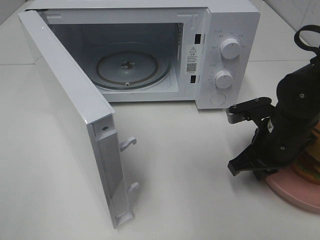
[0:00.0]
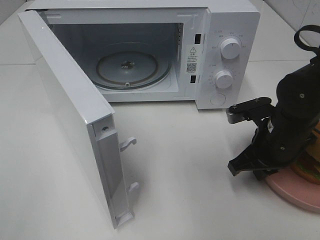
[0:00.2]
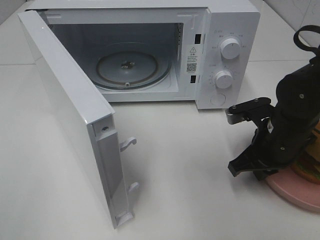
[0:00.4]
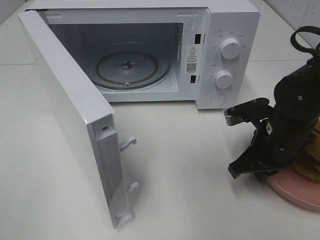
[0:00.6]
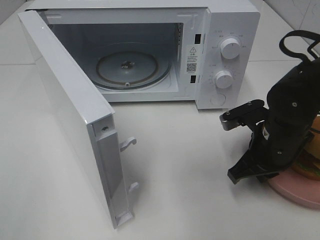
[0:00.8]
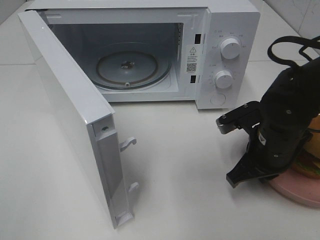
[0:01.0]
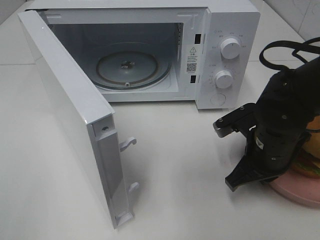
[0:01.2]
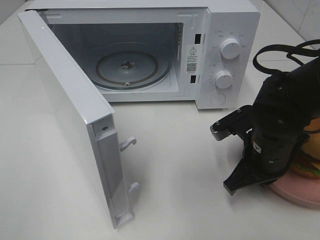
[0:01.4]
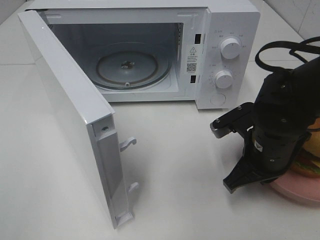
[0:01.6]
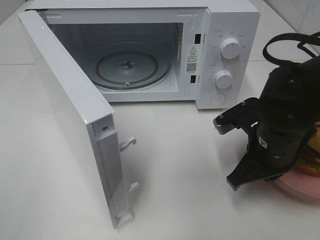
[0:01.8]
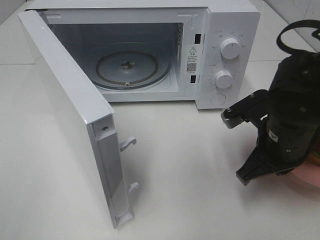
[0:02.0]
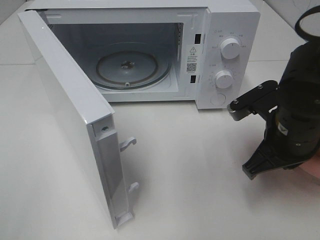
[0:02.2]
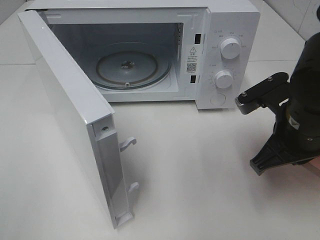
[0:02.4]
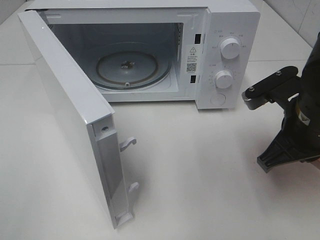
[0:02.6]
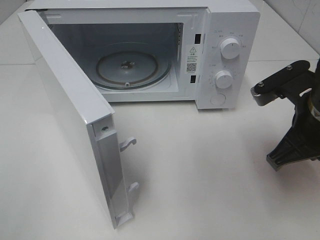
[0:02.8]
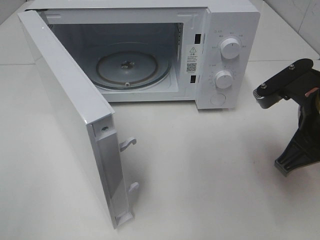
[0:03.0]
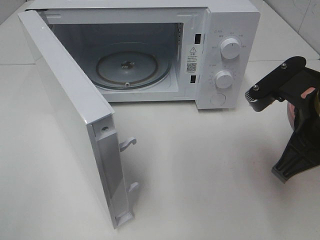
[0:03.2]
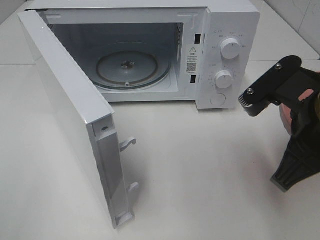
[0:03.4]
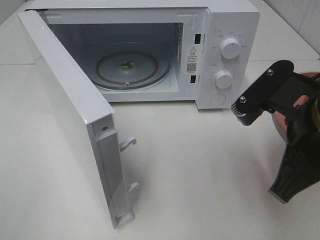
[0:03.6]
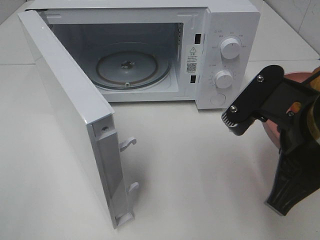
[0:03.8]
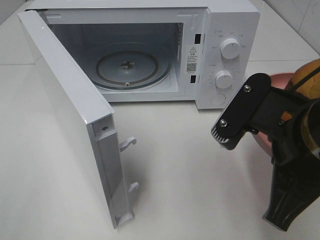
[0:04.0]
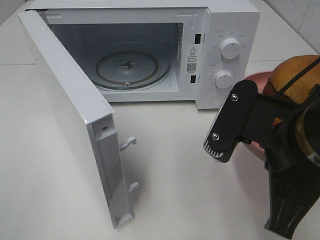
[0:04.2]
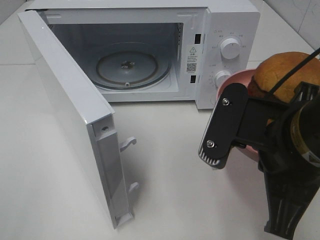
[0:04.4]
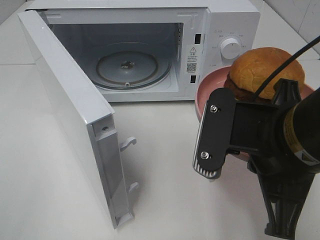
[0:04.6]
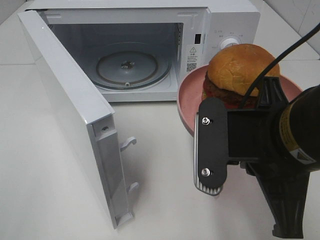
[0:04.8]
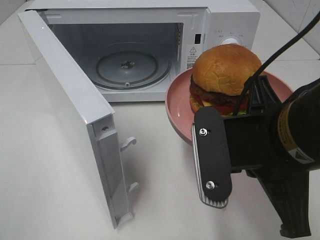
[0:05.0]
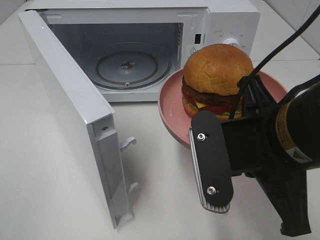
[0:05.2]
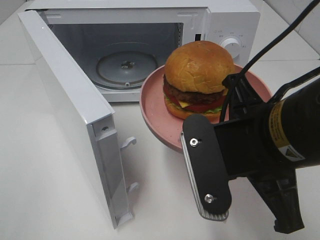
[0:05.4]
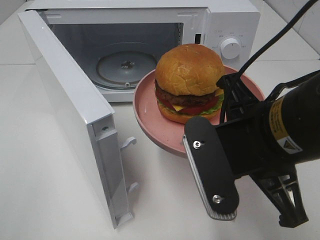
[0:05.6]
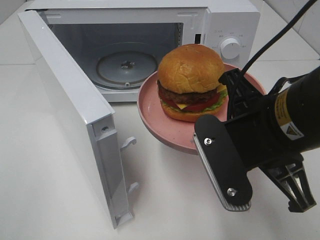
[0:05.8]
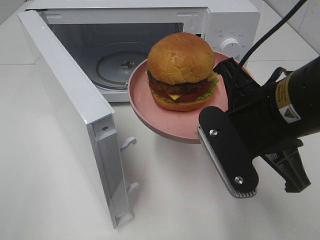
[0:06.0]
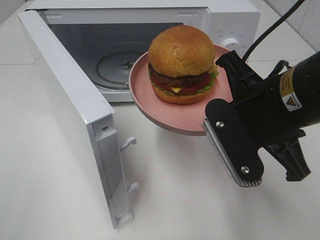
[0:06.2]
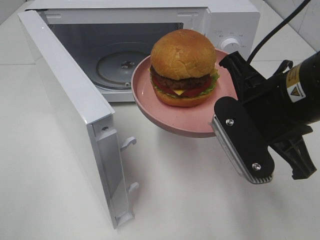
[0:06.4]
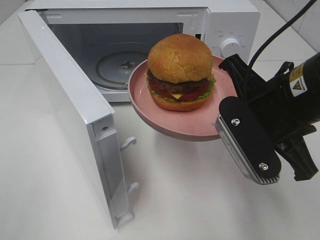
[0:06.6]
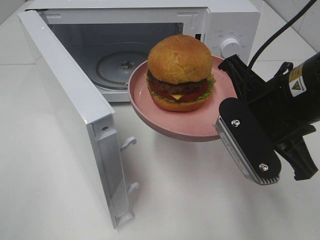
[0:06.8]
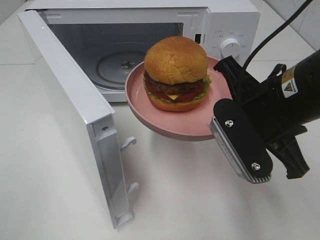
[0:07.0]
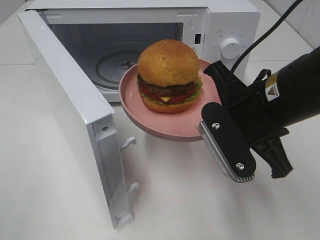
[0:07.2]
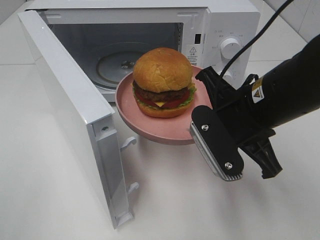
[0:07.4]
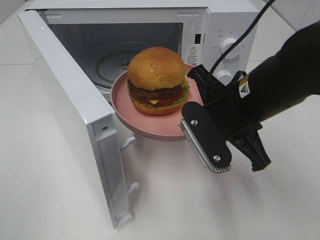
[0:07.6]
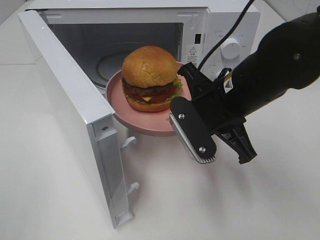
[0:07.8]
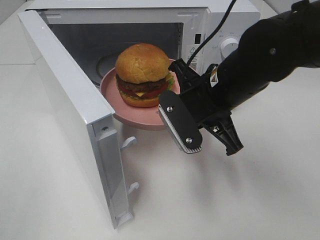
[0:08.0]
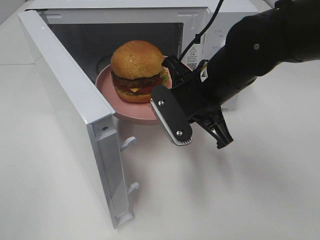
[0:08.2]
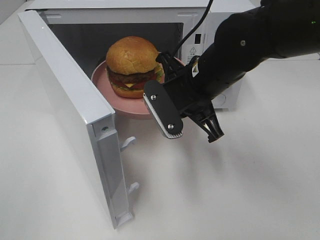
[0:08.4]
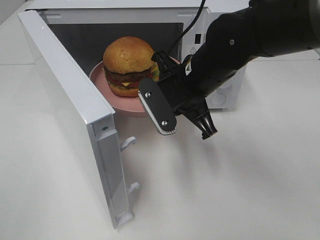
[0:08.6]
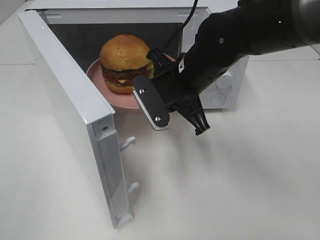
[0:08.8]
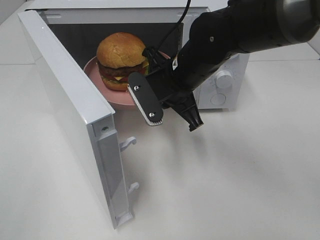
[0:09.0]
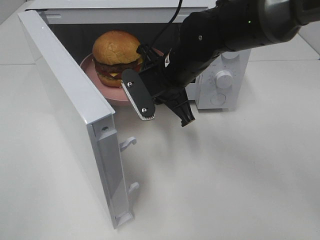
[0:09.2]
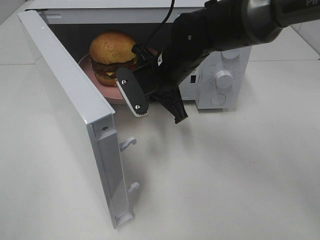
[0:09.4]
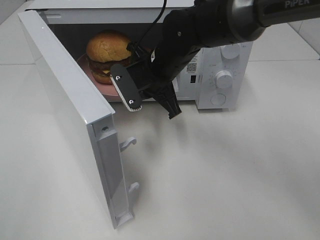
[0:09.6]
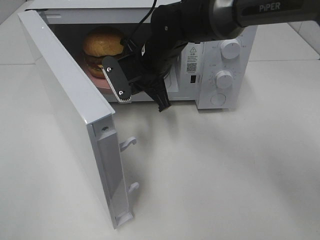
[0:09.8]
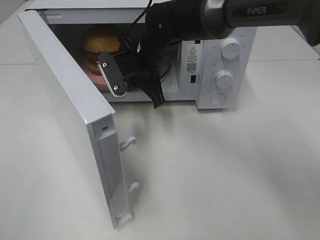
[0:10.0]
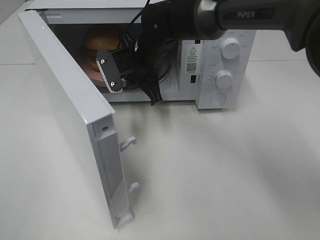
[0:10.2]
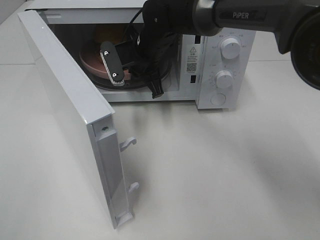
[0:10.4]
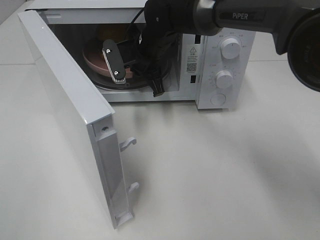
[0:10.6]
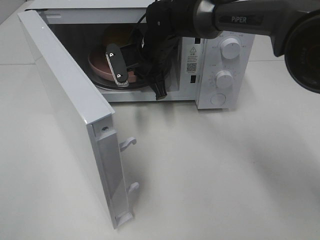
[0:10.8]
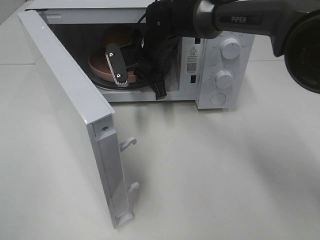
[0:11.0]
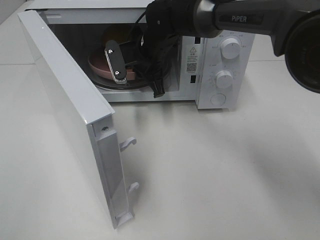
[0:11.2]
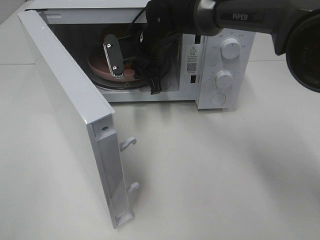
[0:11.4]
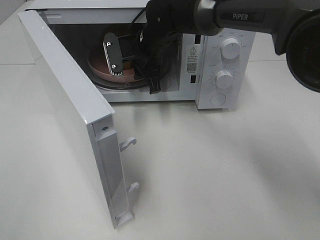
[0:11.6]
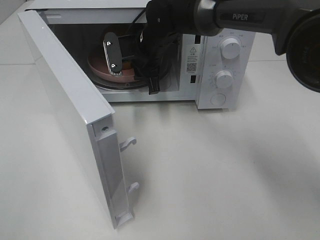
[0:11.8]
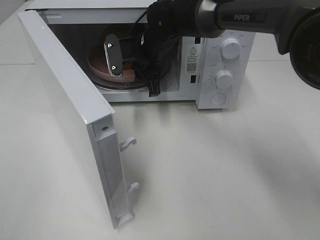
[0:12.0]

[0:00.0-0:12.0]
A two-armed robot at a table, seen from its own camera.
Task of the whole recording: Heat the burger.
Step, 0:00.0 to 0:11.4: Right hand: place the plate in the microwave.
0:00.0 to 0:01.6: There are only small adjustments of the grippers.
0:01.6 to 0:03.0: The right gripper heads upward, covering some 10 cm.
0:03.0 to 0:04.4: The right gripper is displaced to the left and backward by about 10 cm.
0:06.0 to 0:07.6: The right gripper shifts roughly 5 cm forward.
0:07.6 to 0:09.0: The right gripper shifts some 10 cm forward and to the left.
0:09.0 to 0:10.4: The right gripper heads forward and to the left, covering roughly 10 cm.
0:10.4 to 0:12.0: The right gripper opens up.

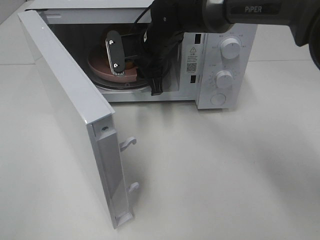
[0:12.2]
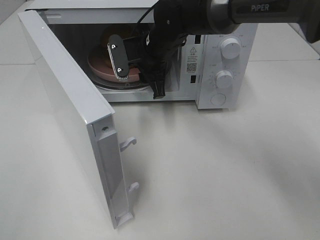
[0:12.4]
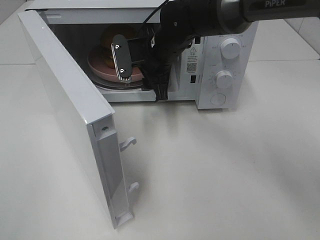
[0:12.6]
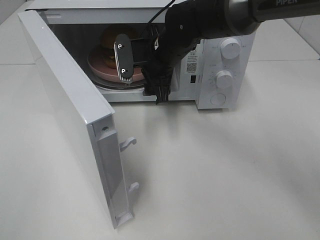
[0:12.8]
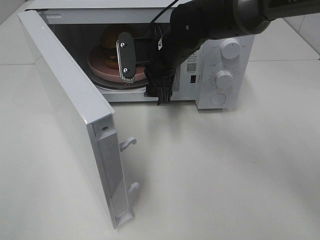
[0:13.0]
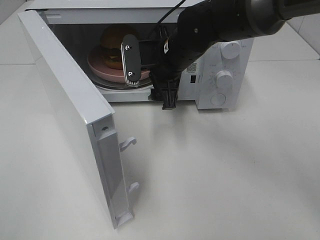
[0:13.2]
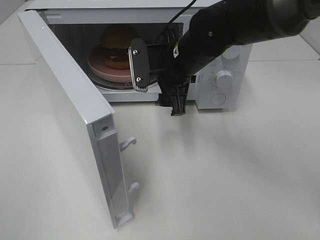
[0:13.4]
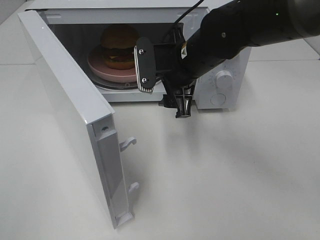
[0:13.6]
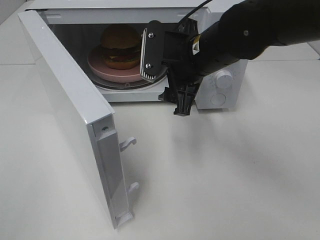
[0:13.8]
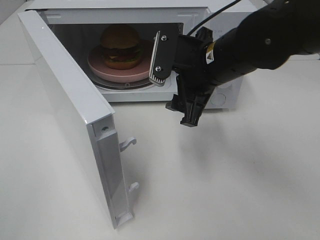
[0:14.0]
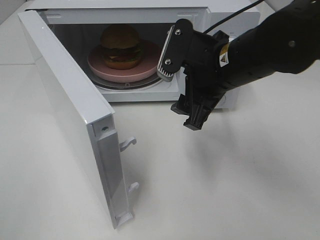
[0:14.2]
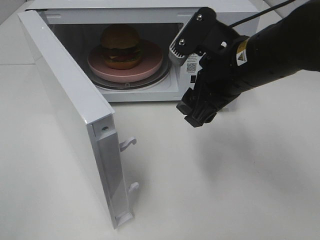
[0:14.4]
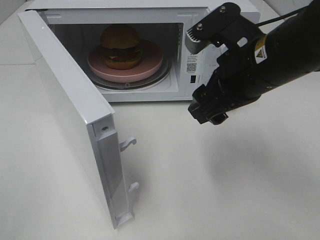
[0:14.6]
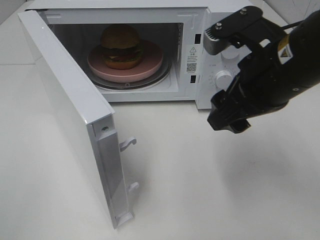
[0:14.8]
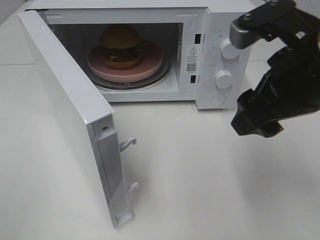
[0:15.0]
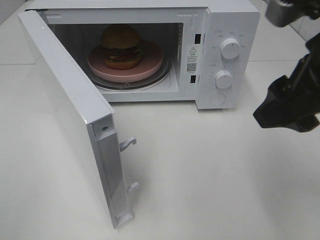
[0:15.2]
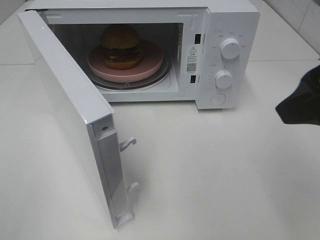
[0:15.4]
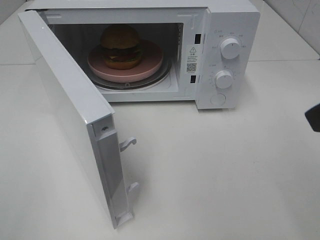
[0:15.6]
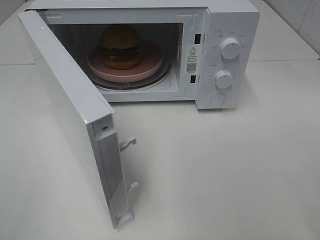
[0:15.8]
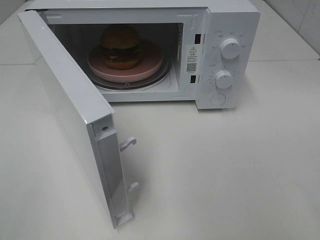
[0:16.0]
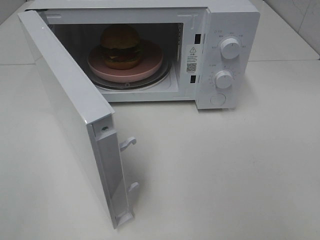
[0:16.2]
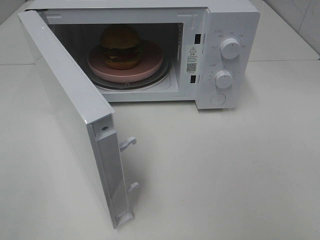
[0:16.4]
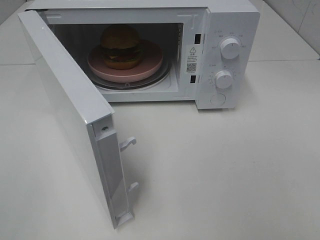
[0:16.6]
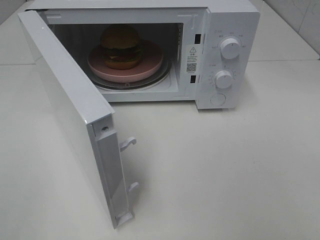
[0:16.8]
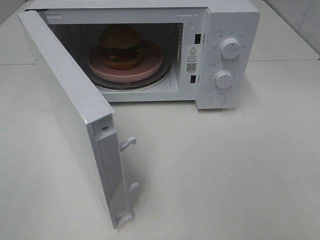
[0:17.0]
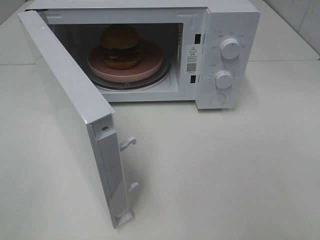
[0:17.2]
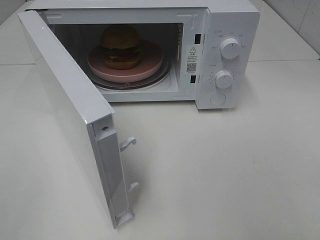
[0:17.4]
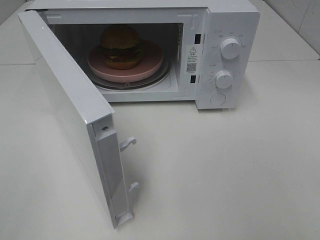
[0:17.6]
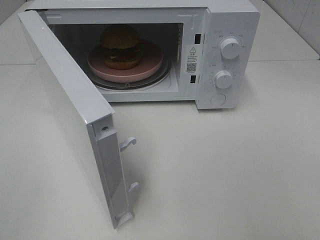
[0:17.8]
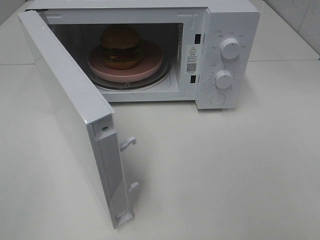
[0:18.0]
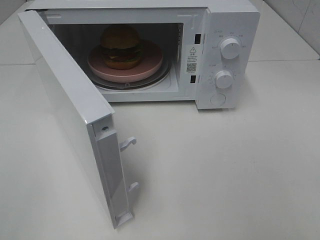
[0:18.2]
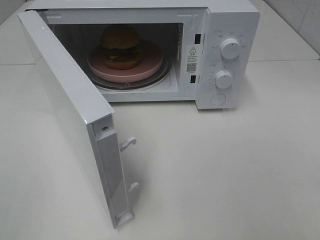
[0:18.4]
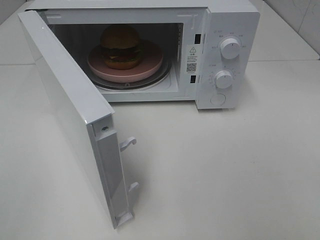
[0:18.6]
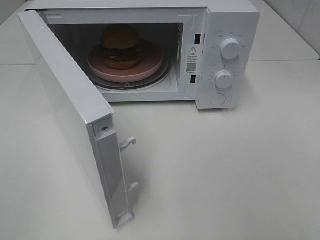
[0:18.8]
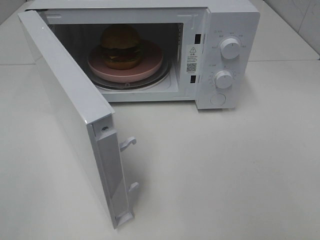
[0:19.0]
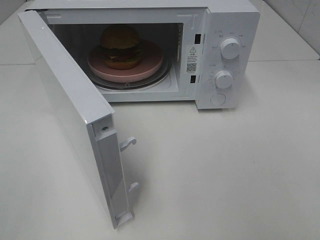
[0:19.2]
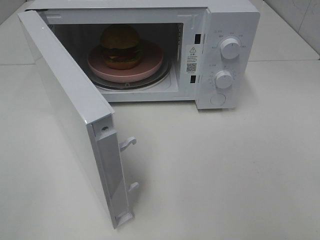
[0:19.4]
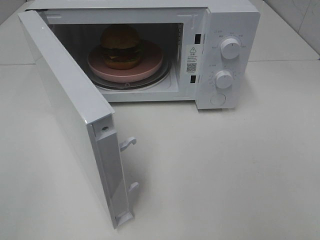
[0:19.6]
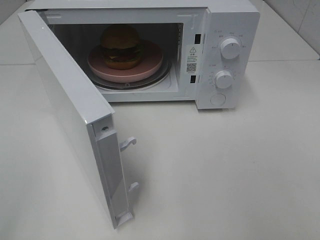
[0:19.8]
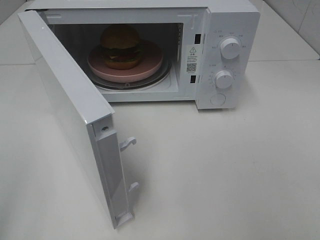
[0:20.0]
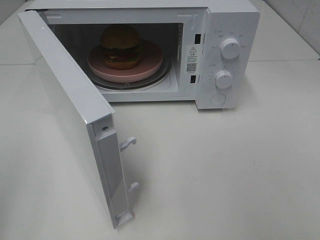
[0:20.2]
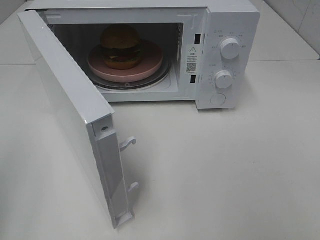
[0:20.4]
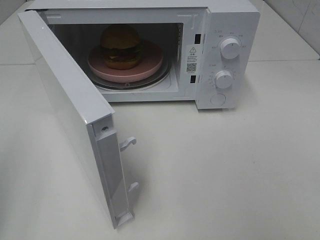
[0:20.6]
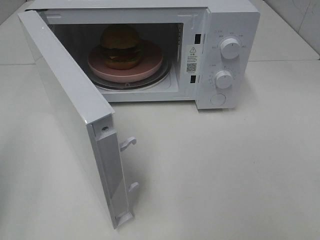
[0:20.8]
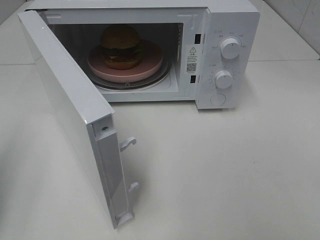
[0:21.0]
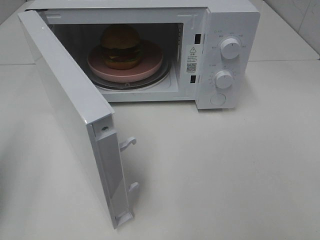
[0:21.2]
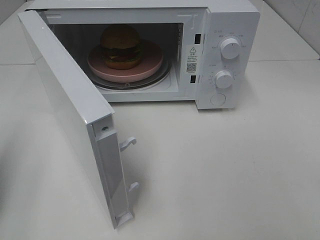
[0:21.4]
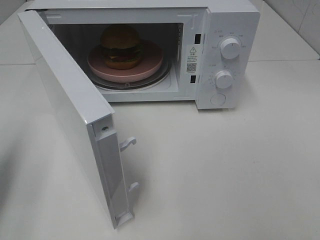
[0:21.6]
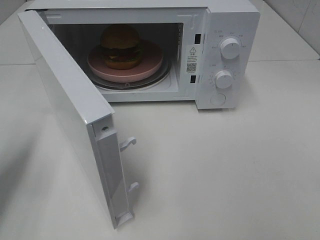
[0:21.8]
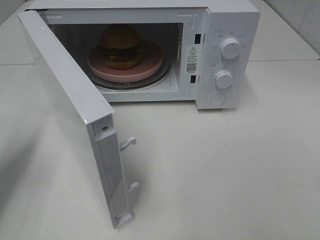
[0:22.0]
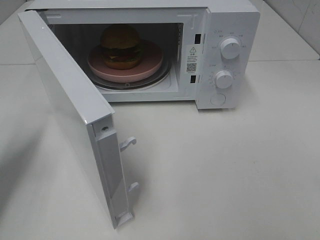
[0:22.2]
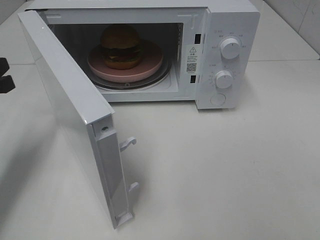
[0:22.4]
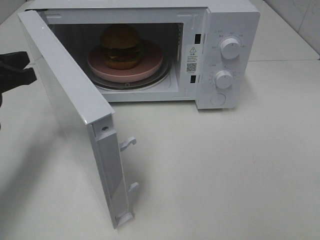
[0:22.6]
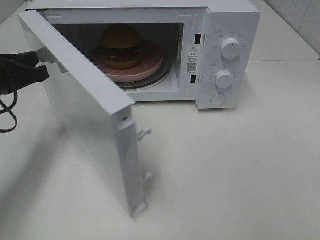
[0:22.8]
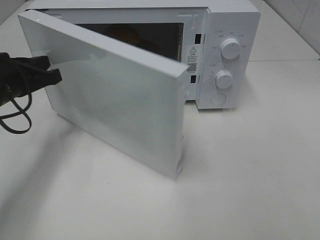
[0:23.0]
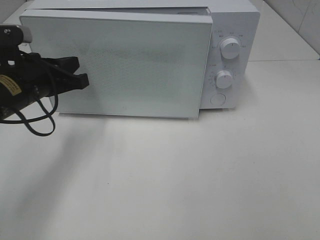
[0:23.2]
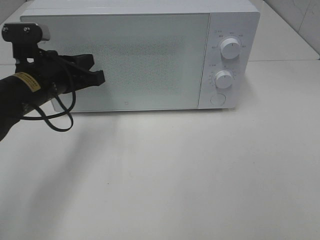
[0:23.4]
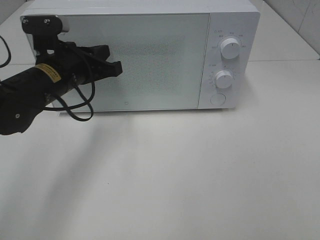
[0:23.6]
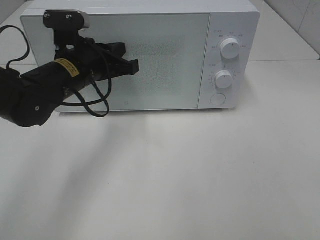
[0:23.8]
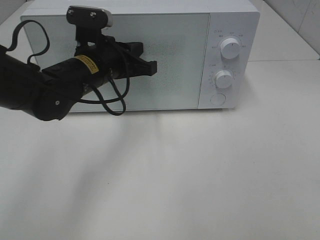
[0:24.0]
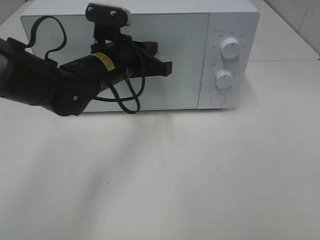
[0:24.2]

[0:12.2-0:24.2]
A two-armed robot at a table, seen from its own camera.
Task of the whole recording: Heat the burger.
Step, 0:12.2 to 0:23.4: Left hand: close the microwave door.
0:12.2 to 0:13.8: The right gripper goes approximately 15 cm backward and to the right, and opens up.
0:13.8 to 0:15.2: The right gripper shifts approximately 20 cm backward, to the right and upward.
0:15.2 to 0:16.6: The right gripper is displaced backward and to the right by about 20 cm.
0:19.8 to 0:21.2: The left gripper shifts roughly 15 cm forward and downward, and closes its fingers.
0:21.2 to 0:22.6: The left gripper moves forward and to the right, approximately 15 cm.
0:22.6 to 0:24.2: The left gripper moves to the right, some 20 cm.
